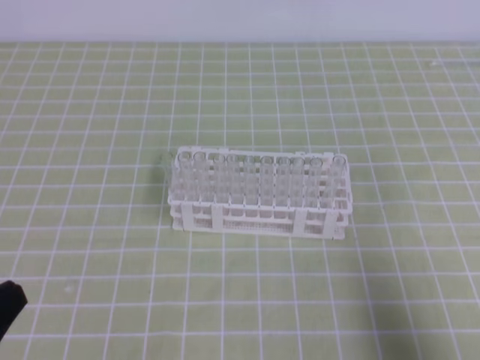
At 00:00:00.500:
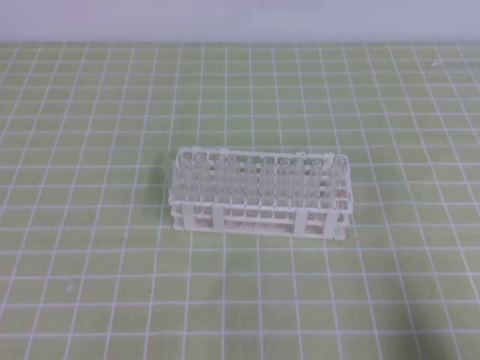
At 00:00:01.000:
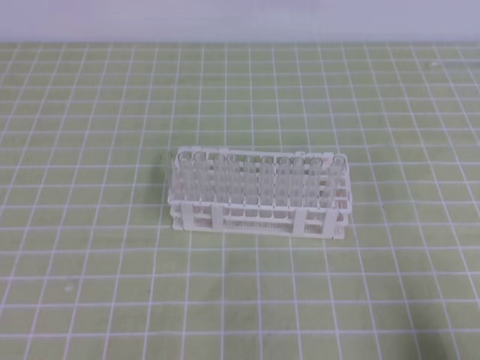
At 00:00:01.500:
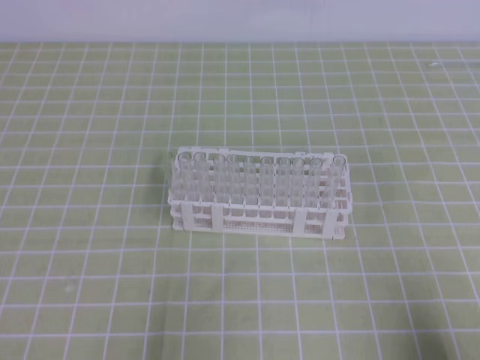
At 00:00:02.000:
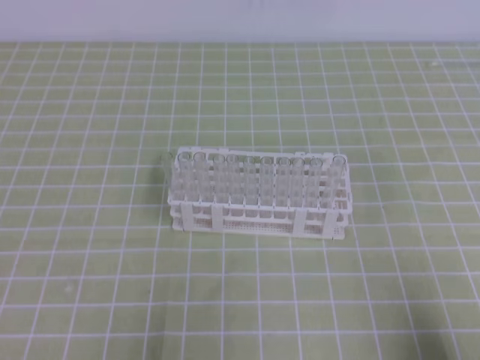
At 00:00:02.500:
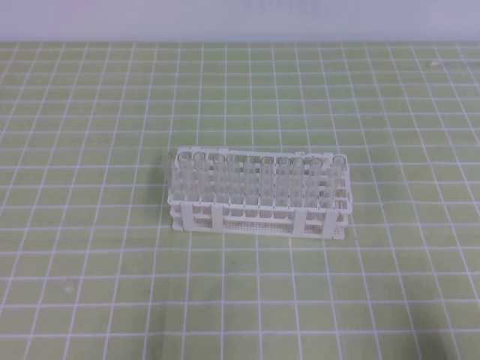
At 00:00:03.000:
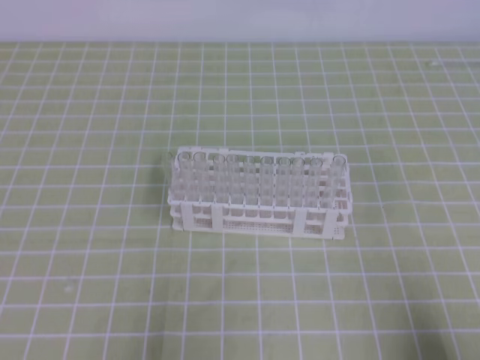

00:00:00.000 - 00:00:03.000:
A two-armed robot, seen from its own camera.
00:00:00.000 - 00:00:01.500: The two grippers go about 5 cm downward.

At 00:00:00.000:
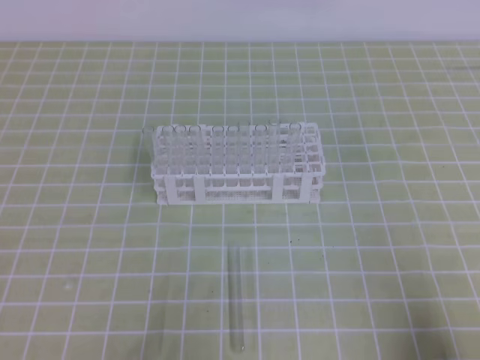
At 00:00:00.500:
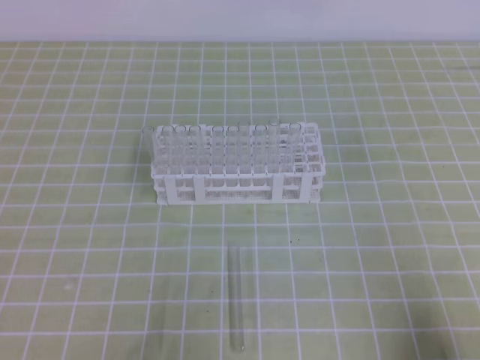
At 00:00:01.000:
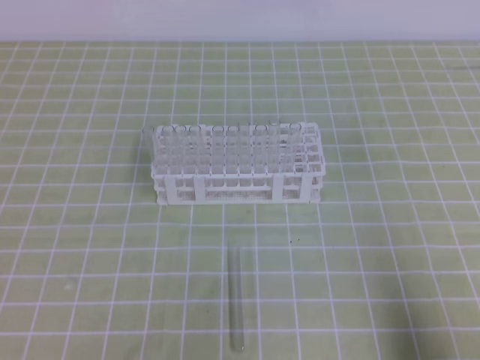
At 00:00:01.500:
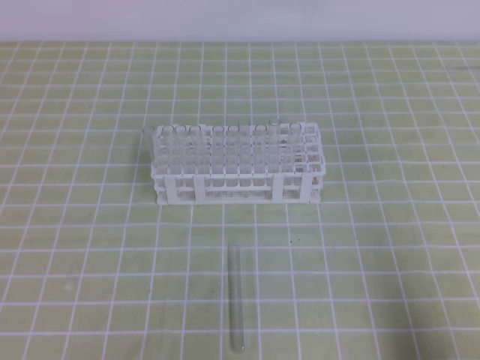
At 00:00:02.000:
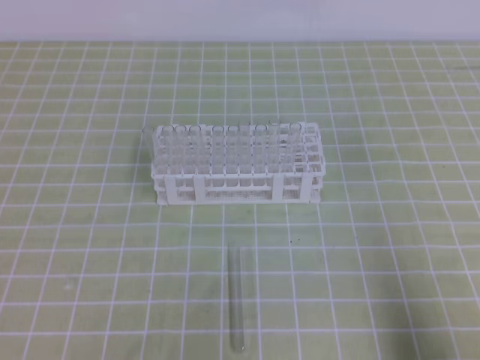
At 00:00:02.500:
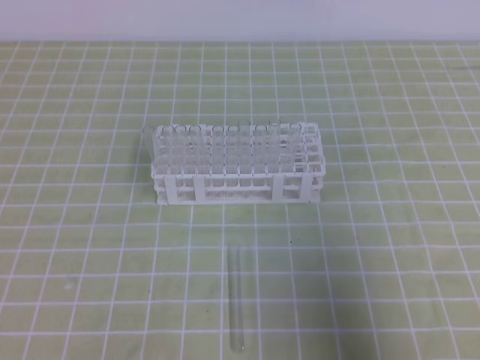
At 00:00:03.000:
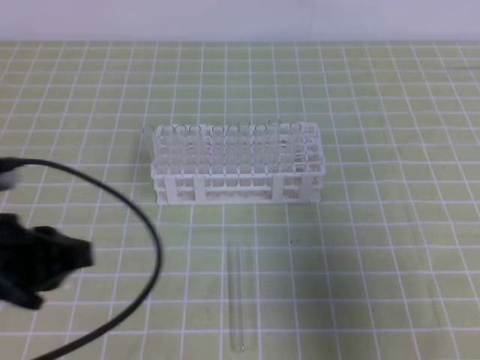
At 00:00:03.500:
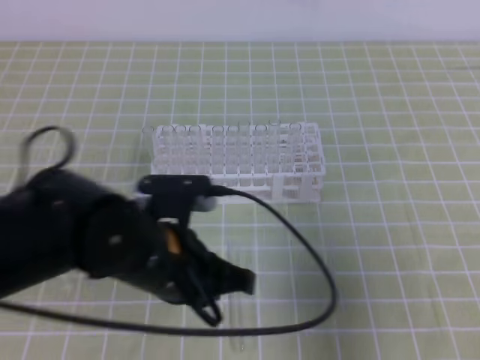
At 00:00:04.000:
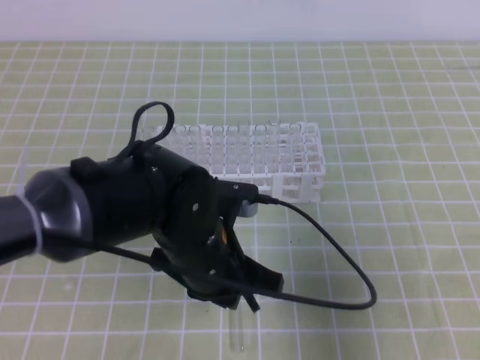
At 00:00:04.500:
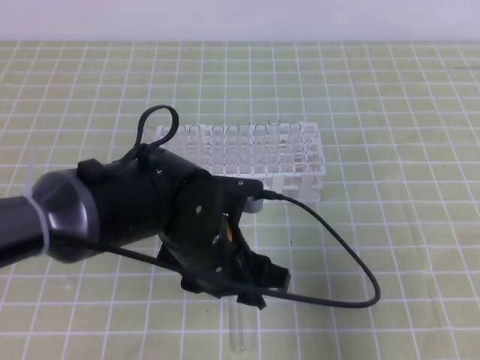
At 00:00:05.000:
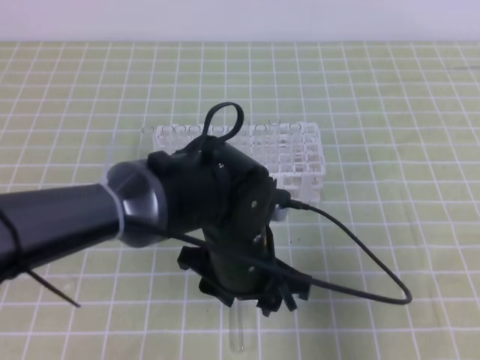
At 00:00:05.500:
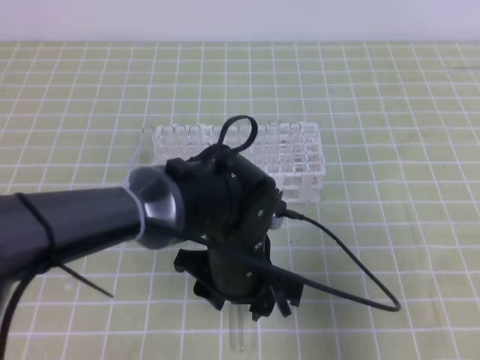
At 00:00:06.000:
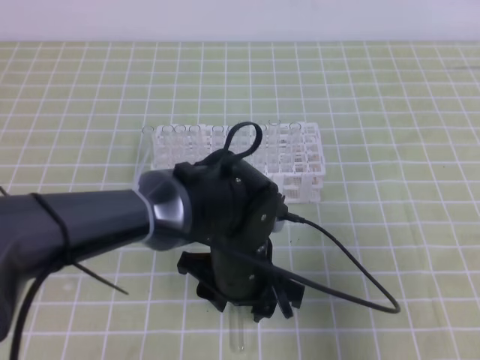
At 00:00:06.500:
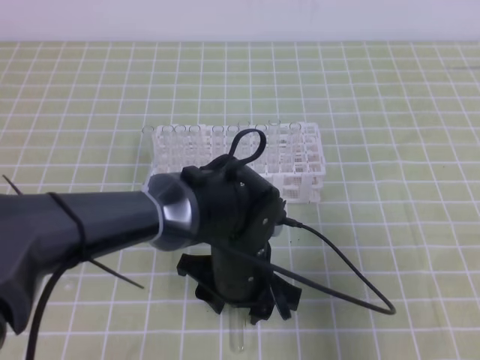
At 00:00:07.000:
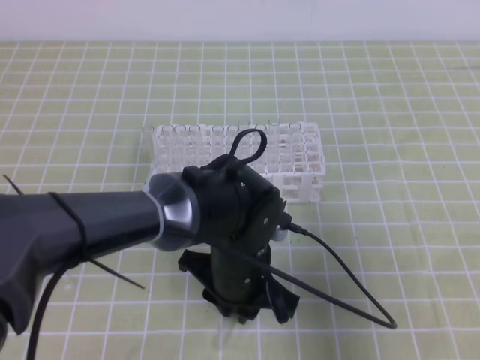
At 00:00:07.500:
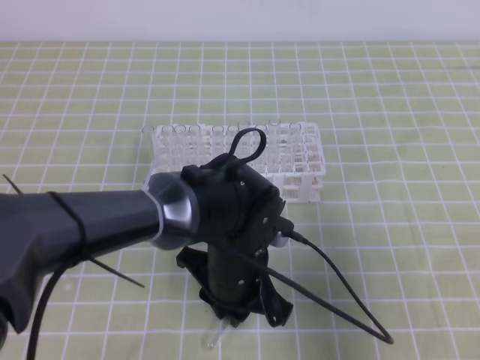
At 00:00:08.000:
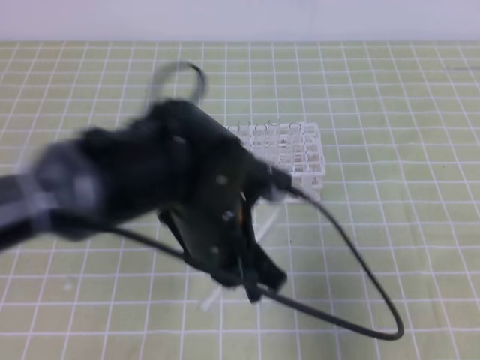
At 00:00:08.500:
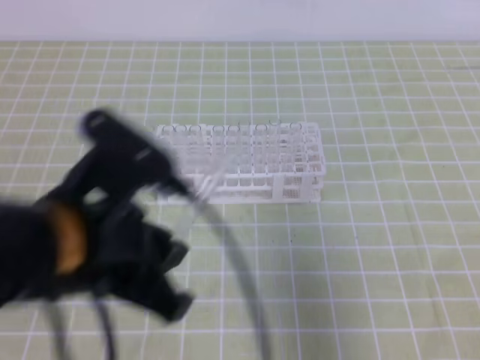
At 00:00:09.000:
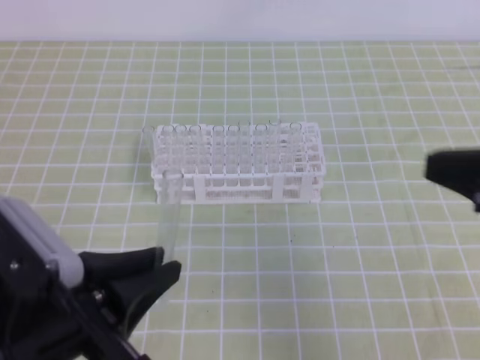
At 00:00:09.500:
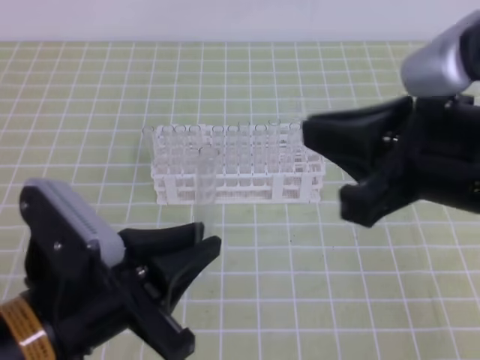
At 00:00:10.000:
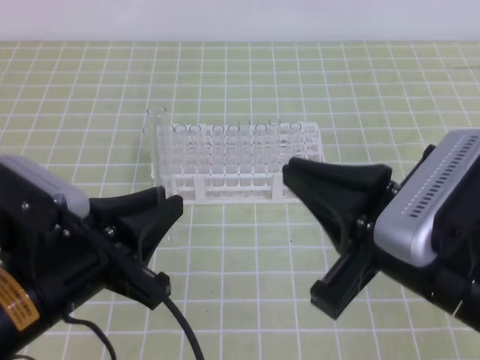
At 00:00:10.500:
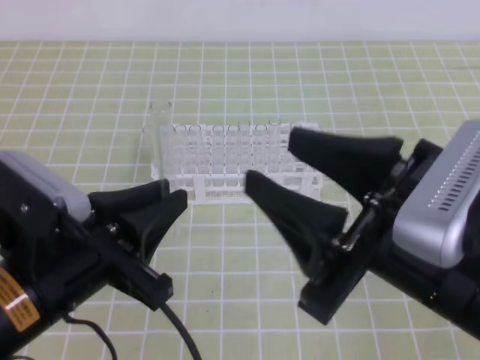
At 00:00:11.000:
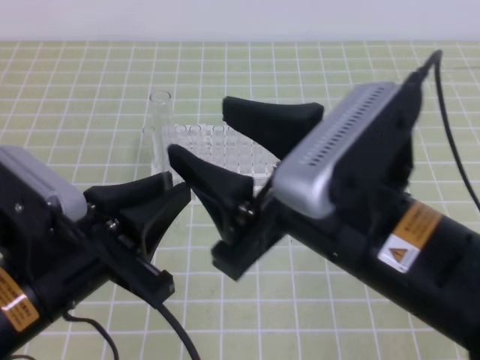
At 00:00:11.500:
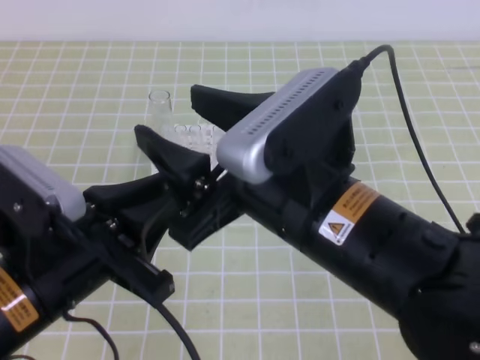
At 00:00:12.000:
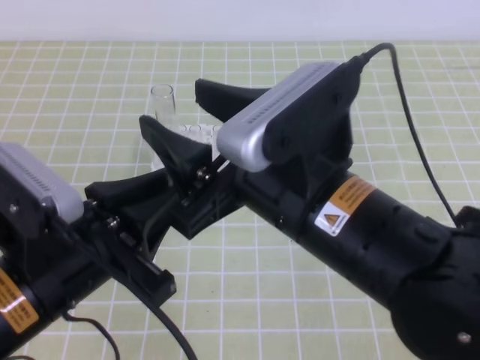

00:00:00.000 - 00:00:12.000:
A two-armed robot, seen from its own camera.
00:00:02.000 - 00:00:04.000: The right gripper moves upward and forward, roughly 10 cm. Meanwhile the left gripper shifts roughly 30 cm to the right and forward.
00:00:04.000 - 00:00:06.000: The left gripper moves approximately 5 cm, and opens its fingers.
00:00:06.000 - 00:00:08.000: The left gripper goes roughly 10 cm upward, and closes.
00:00:08.000 - 00:00:10.000: The right gripper is displaced to the left by about 15 cm. The left gripper goes some 15 cm to the left and backward.
00:00:10.000 - 00:00:12.000: The right gripper travels to the left by roughly 10 cm, and opens up.

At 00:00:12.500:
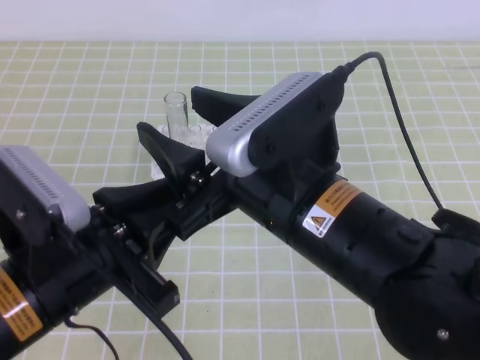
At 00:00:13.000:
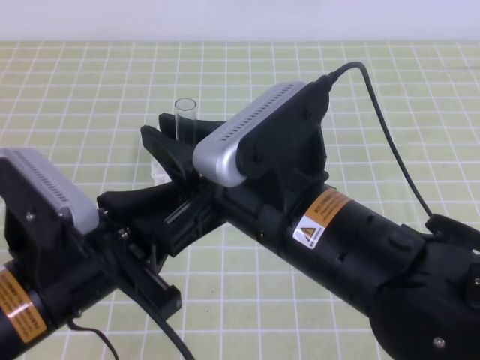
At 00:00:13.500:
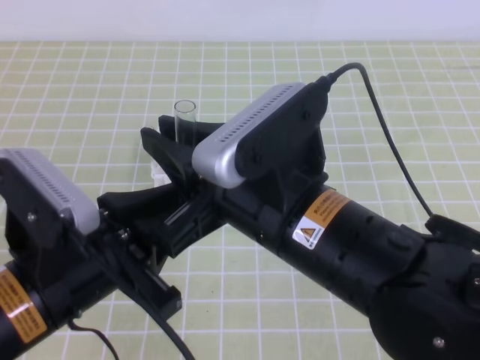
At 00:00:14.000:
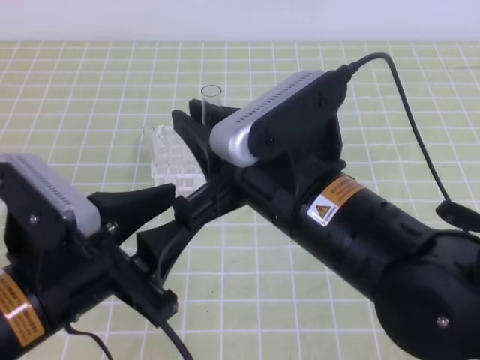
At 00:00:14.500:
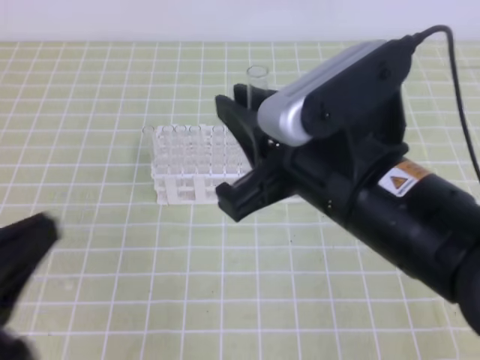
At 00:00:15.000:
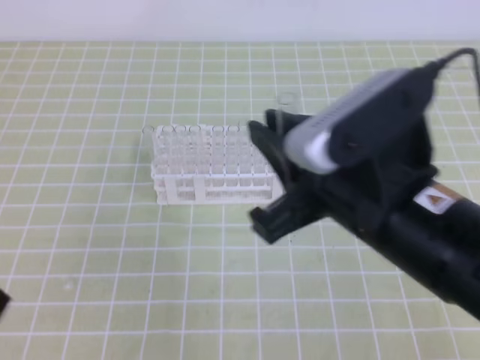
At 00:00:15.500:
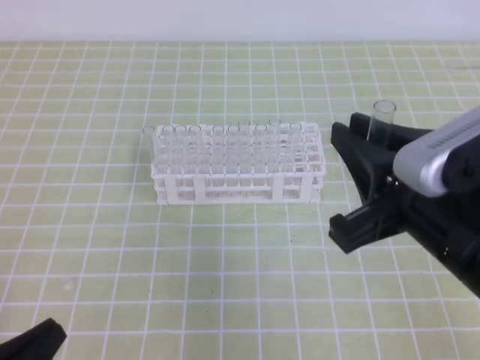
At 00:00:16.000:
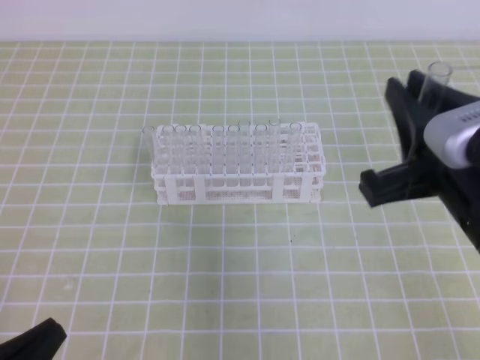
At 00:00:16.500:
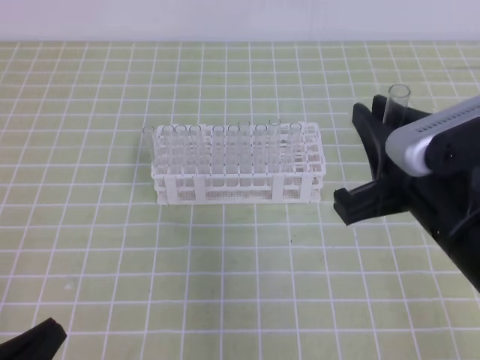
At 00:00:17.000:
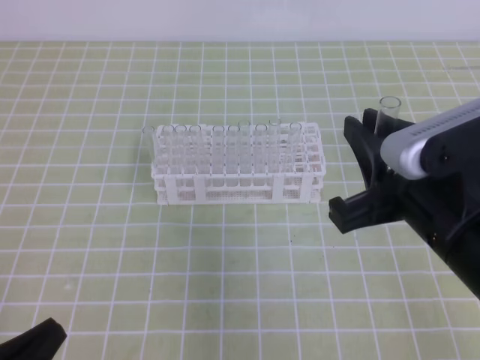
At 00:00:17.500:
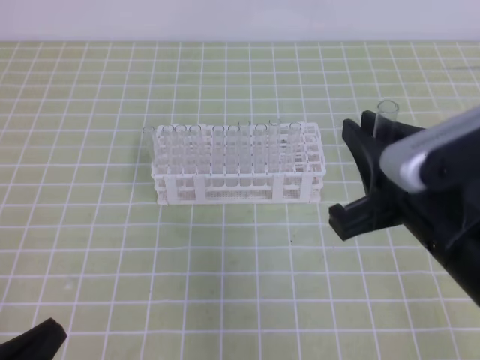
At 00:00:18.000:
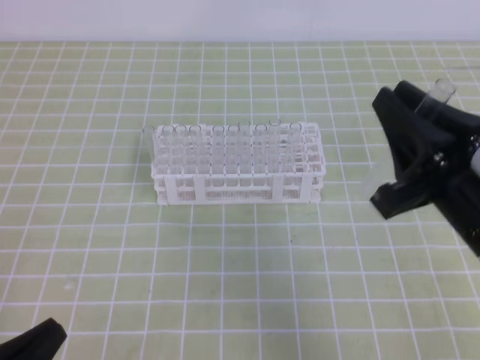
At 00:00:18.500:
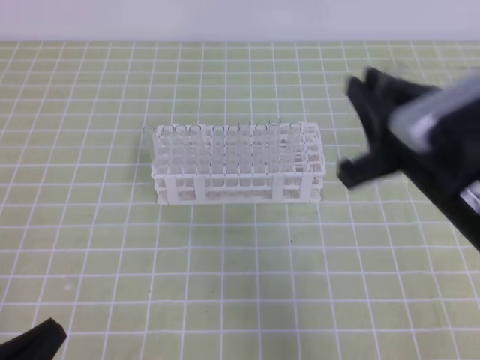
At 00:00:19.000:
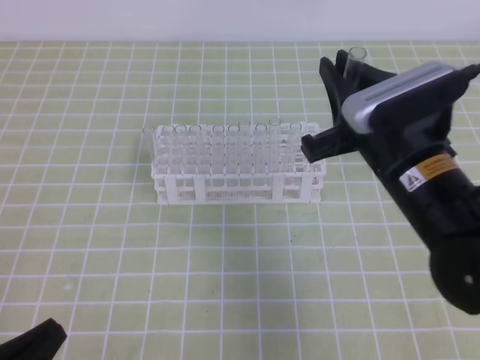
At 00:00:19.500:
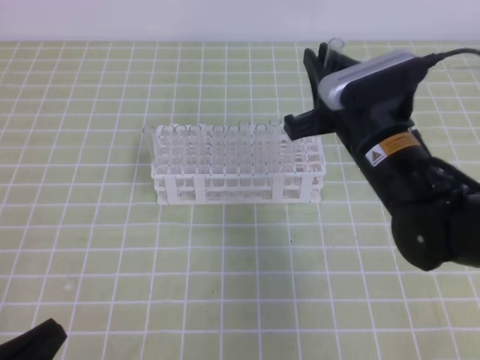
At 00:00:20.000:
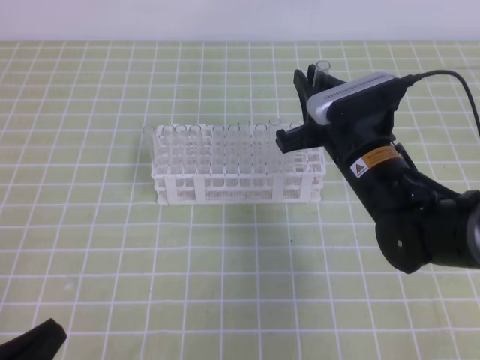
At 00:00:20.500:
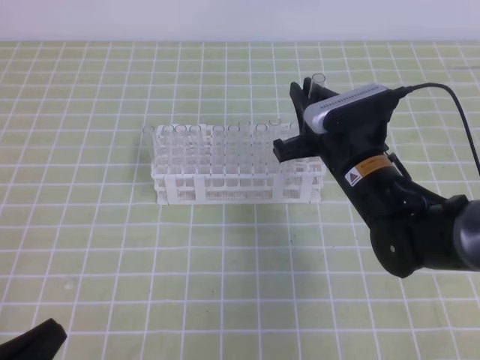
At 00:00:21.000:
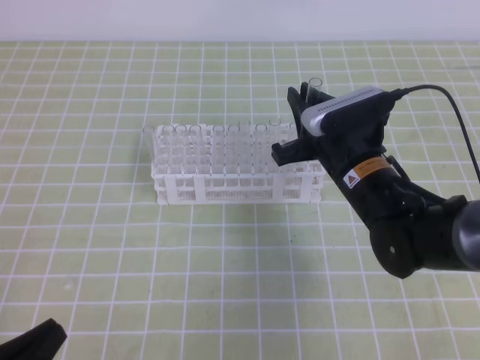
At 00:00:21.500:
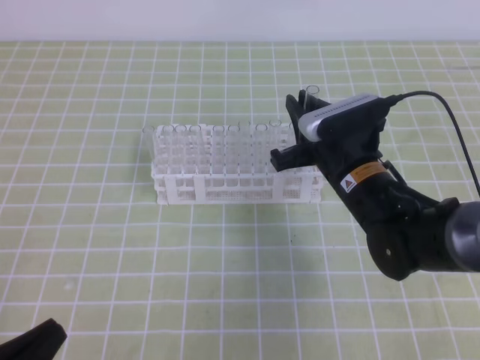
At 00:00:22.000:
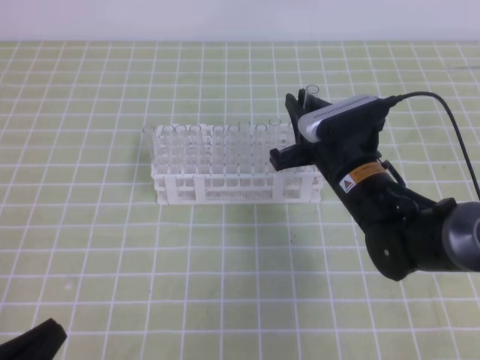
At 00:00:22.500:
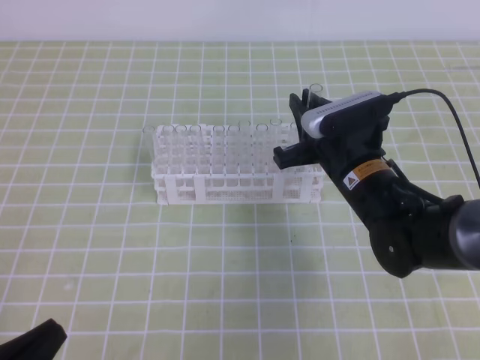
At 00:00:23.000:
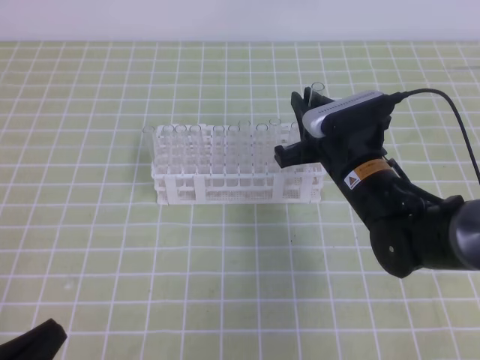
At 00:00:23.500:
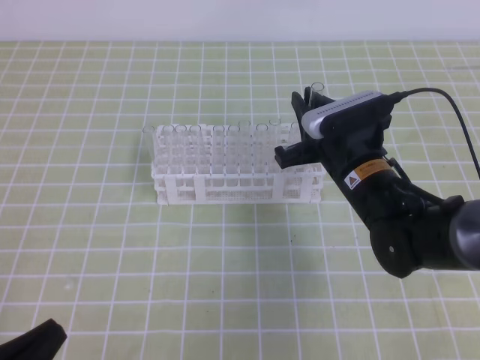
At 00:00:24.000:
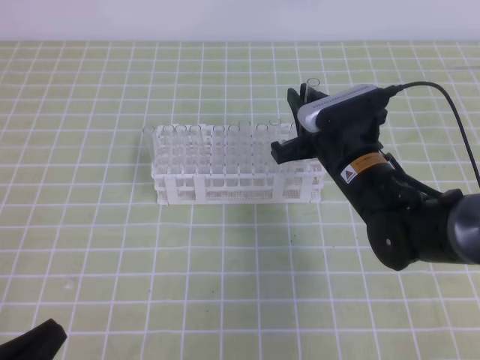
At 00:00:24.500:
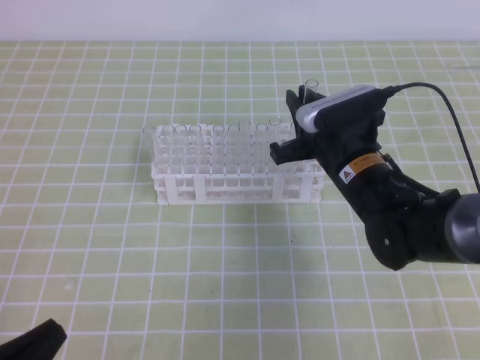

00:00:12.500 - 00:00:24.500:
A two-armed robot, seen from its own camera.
00:00:12.500 - 00:00:14.500: The right gripper closes its fingers, while the left gripper heads to the left and backward, covering some 10 cm, and opens and closes again.
00:00:14.500 - 00:00:16.500: The right gripper heads to the right, covering approximately 10 cm. Meanwhile the left gripper is displaced downward by about 10 cm.
00:00:16.500 - 00:00:18.500: The right gripper moves about 5 cm.
00:00:18.500 - 00:00:20.500: The right gripper shifts some 15 cm forward, downward and to the left.
00:00:20.500 - 00:00:22.500: The grippers move only a little.
00:00:22.500 - 00:00:24.500: Neither gripper changes place.
